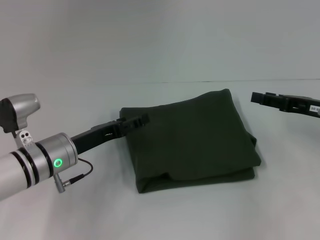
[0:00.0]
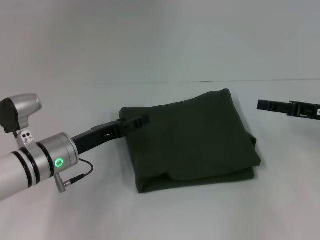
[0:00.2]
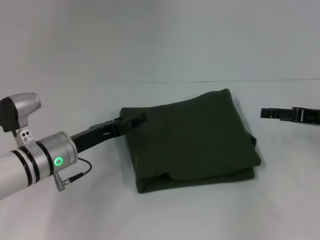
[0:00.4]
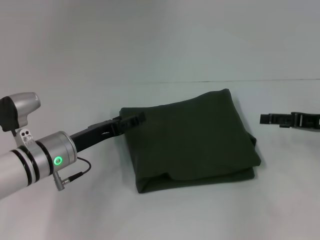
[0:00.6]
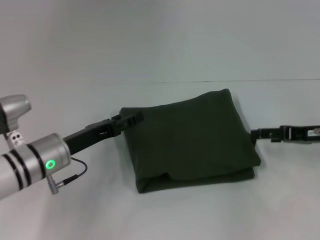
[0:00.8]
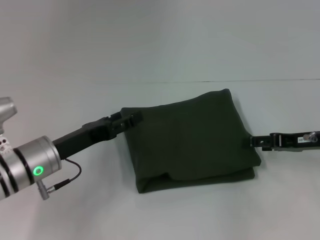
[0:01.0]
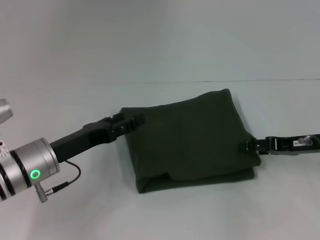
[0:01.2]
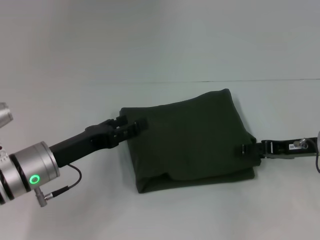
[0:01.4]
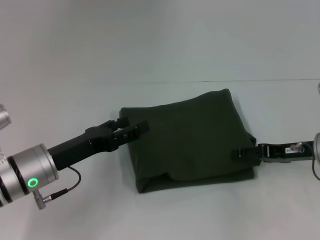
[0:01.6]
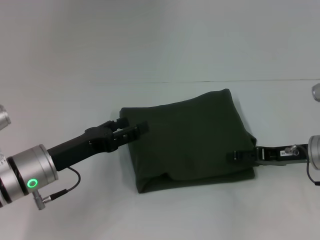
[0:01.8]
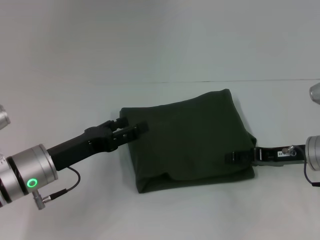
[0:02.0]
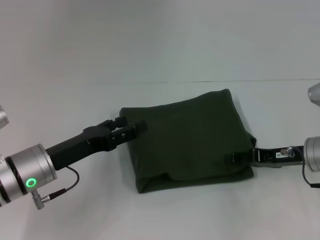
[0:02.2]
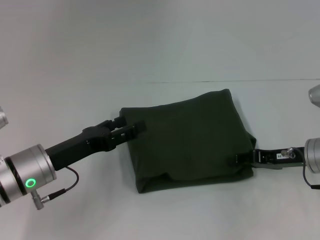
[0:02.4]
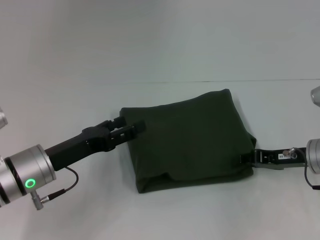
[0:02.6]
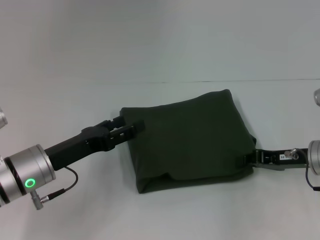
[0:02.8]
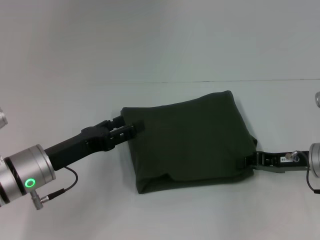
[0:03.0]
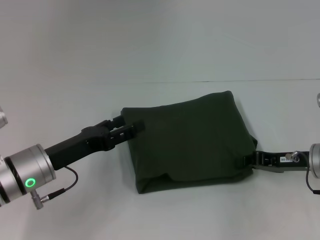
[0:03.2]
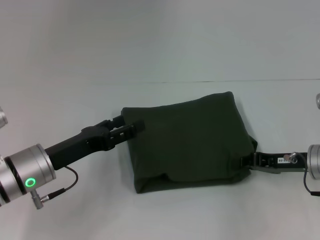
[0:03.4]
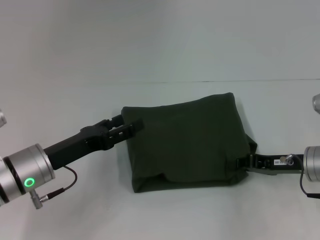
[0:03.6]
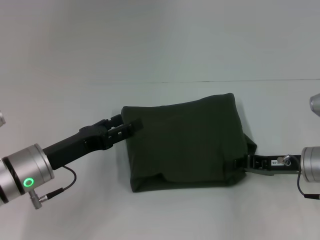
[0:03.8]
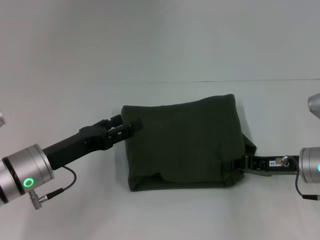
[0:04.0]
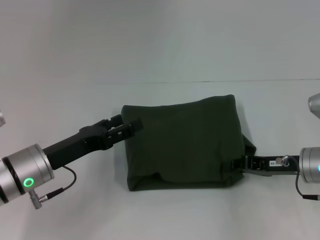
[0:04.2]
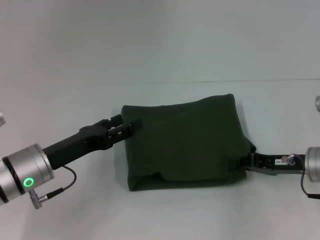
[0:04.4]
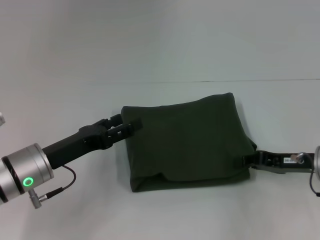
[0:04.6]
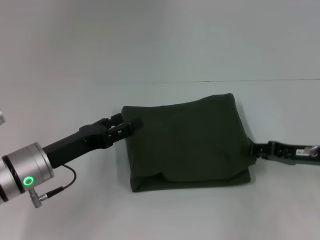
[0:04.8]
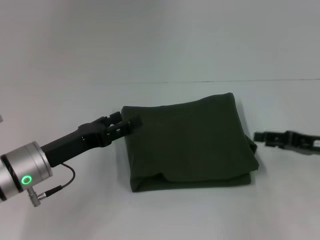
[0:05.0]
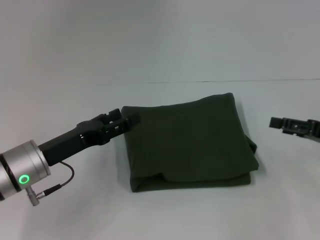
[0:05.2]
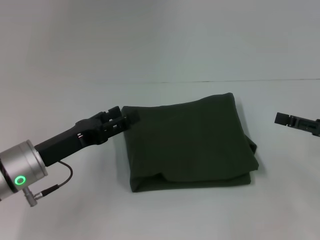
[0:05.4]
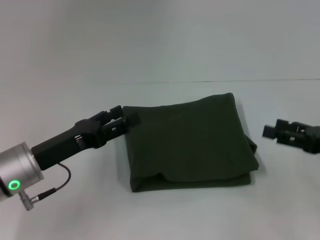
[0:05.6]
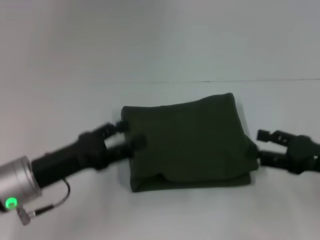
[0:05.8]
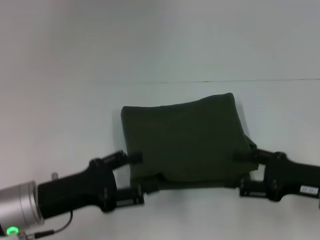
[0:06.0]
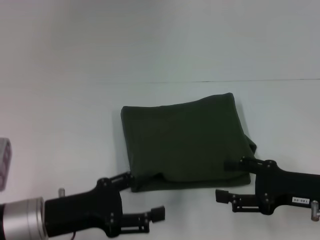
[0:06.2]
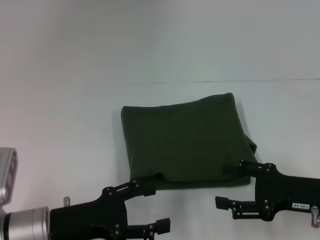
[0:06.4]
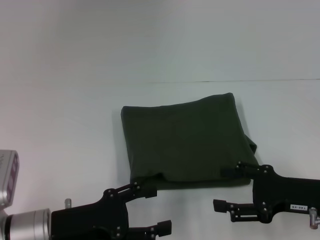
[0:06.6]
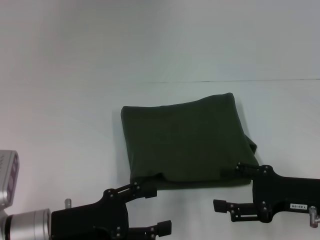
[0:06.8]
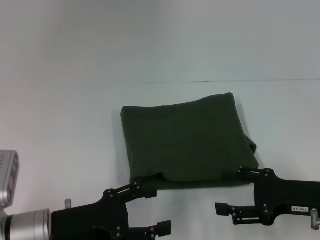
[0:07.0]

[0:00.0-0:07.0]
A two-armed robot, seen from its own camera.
0:00.0 to 0:01.4: The right gripper opens its fingers.
0:01.4 to 0:02.8: The right gripper closes.
0:02.8 to 0:04.2: There are only small adjustments of the grippers.
0:04.2 to 0:05.6: The right gripper is displaced to the right by roughly 5 cm, and opens.
0:05.6 to 0:07.0: The right gripper travels to the left by about 5 cm, while the left gripper moves backward, roughly 5 cm.

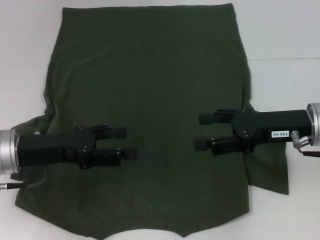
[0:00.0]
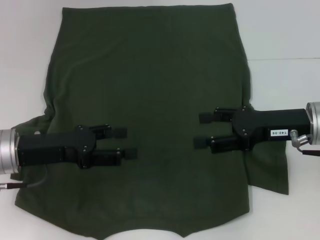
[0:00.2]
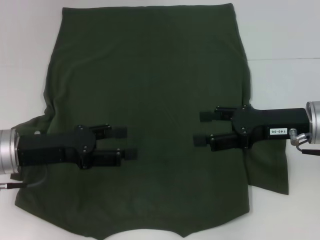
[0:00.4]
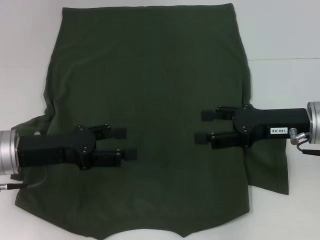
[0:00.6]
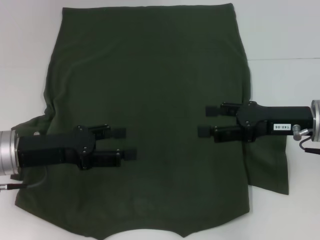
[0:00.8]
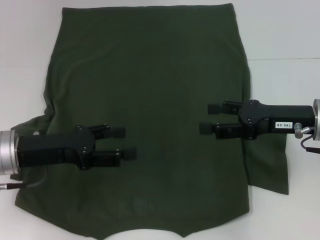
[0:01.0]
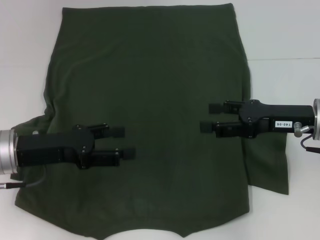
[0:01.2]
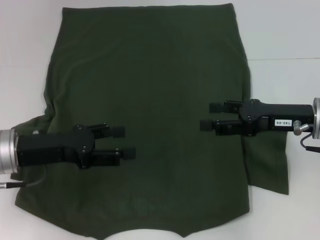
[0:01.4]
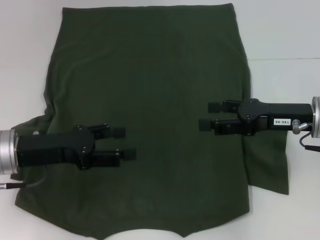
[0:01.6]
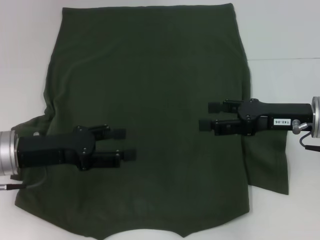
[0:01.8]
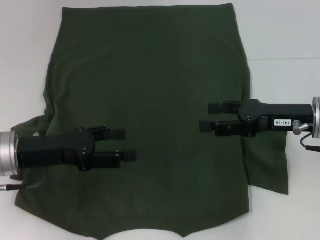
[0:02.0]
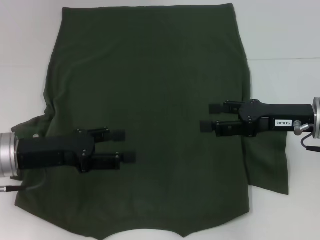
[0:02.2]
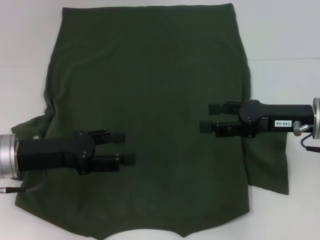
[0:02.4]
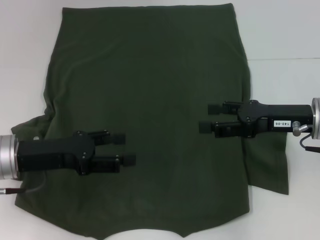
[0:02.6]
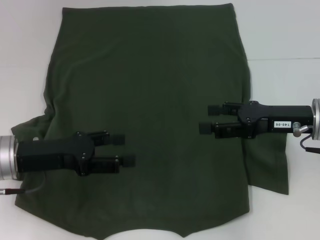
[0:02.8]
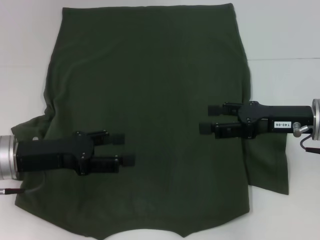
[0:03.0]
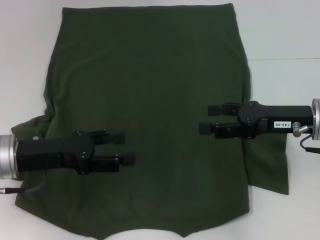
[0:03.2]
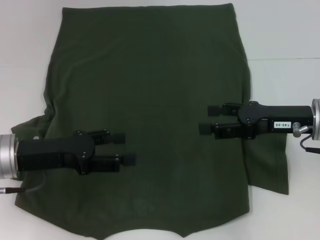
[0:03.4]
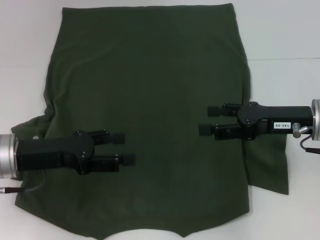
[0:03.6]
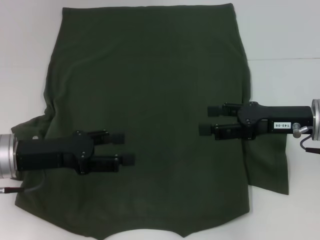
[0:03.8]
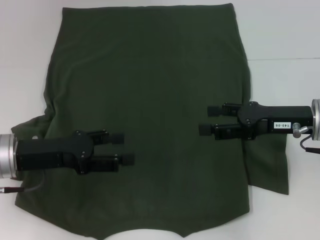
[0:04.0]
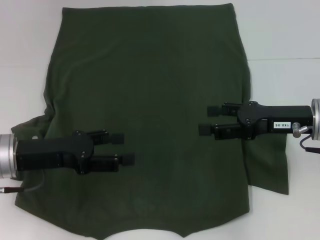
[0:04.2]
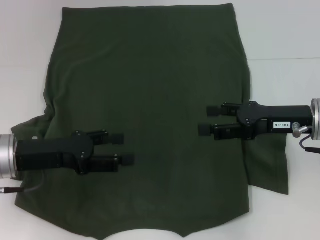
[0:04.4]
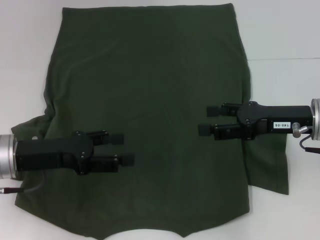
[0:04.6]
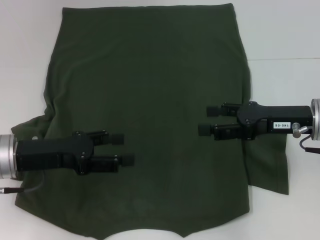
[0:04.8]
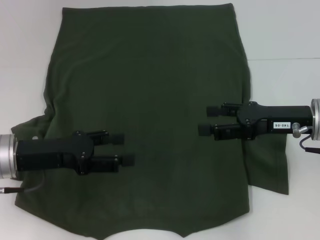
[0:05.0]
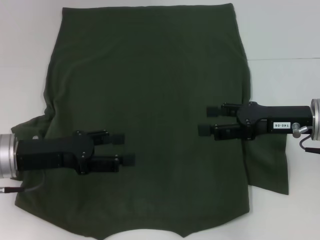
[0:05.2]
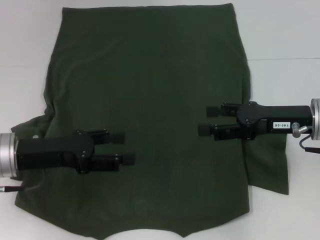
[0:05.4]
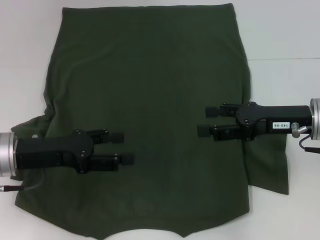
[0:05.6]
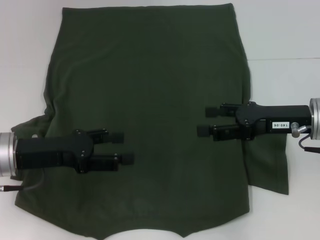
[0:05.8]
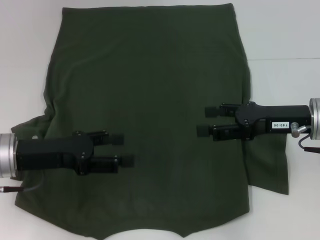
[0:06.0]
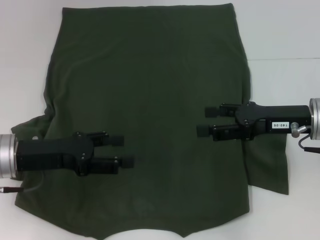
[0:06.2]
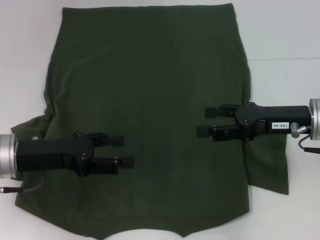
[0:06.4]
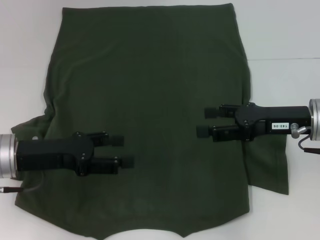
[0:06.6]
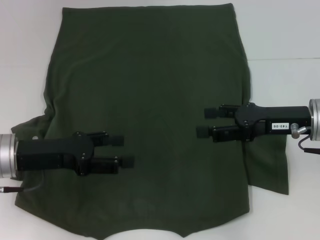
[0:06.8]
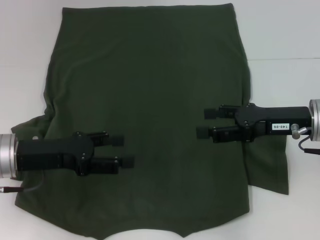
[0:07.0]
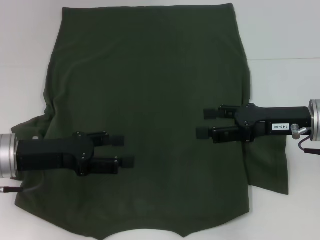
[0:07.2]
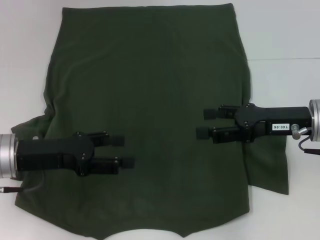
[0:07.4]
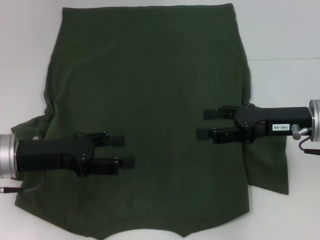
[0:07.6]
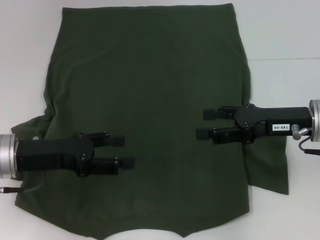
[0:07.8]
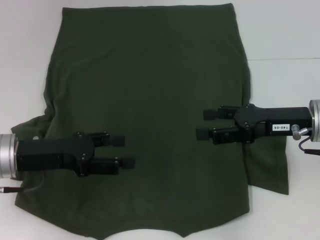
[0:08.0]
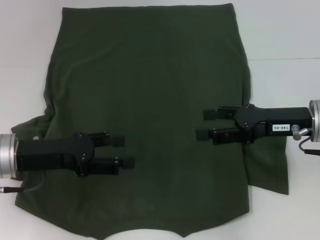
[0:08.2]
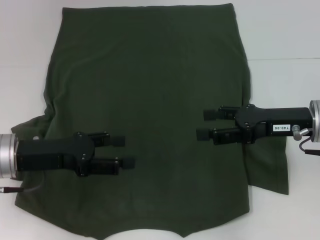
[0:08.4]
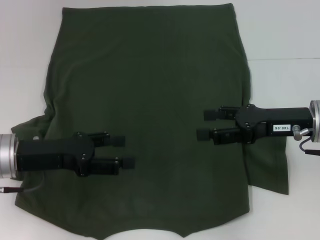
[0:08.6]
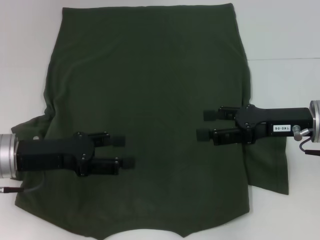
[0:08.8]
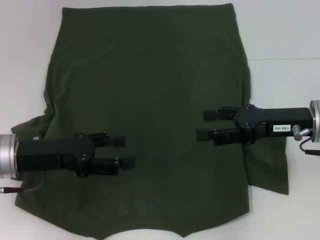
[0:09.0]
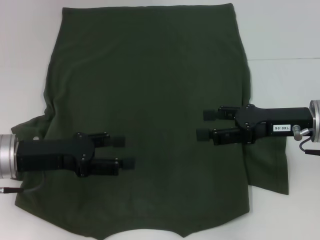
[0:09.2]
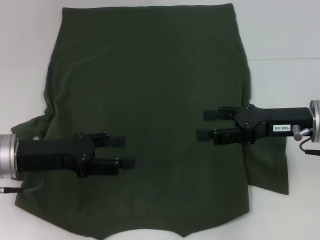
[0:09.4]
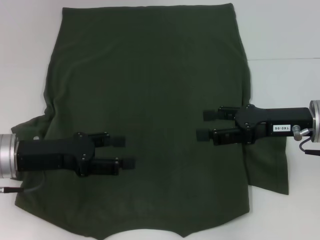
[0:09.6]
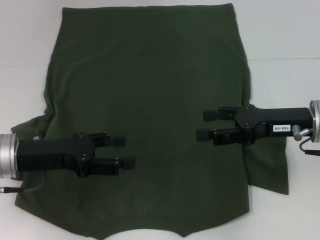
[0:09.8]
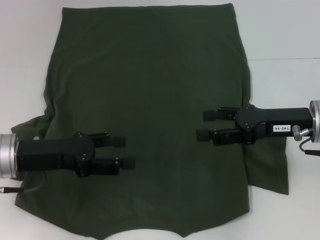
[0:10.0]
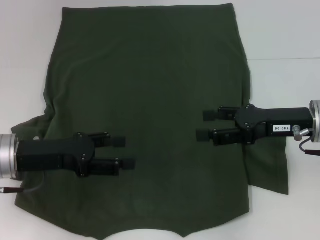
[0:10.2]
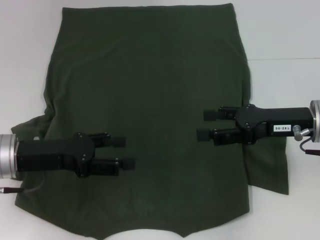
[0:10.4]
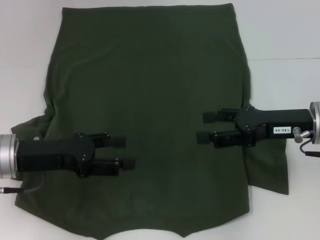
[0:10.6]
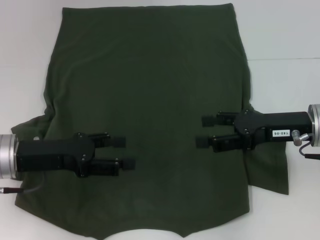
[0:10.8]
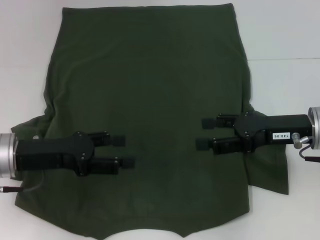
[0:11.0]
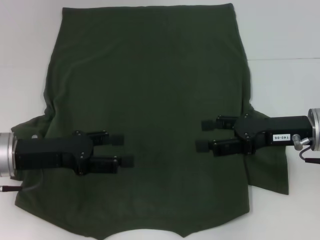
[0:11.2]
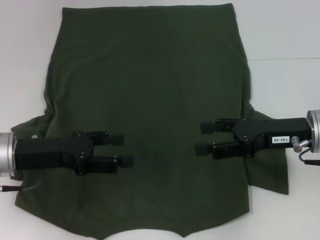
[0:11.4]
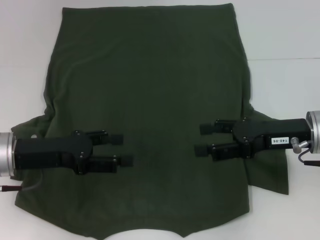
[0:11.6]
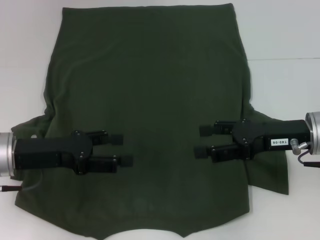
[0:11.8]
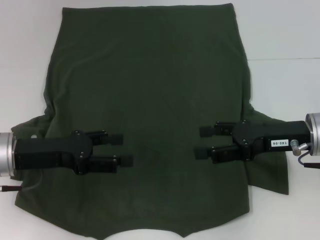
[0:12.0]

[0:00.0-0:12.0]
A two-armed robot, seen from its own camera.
0:00.0 to 0:01.6: The grippers move only a little.
0:01.6 to 0:10.4: The two grippers keep their place.
0:10.4 to 0:12.0: Both grippers stay put.

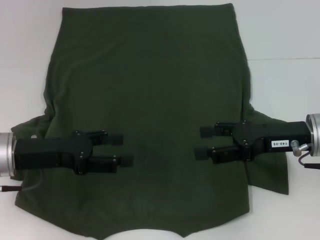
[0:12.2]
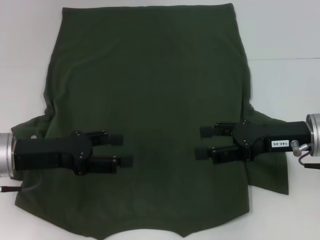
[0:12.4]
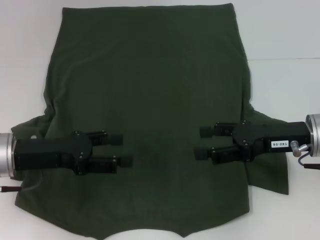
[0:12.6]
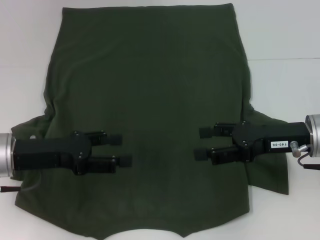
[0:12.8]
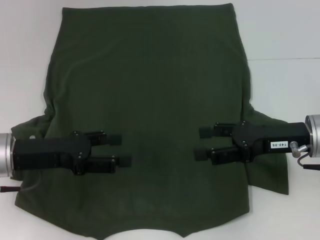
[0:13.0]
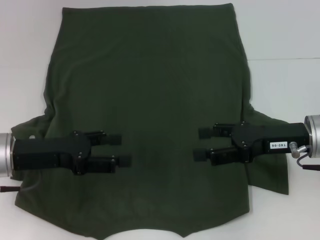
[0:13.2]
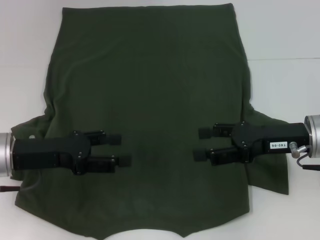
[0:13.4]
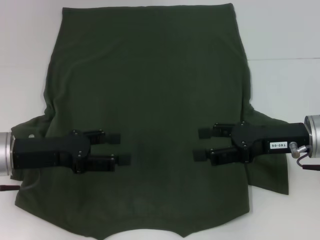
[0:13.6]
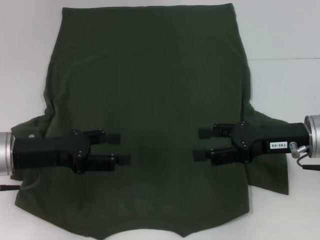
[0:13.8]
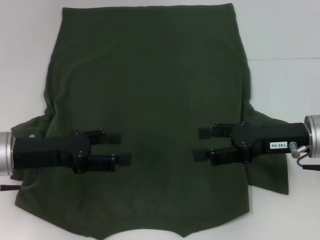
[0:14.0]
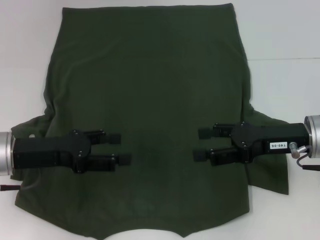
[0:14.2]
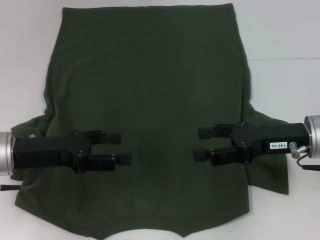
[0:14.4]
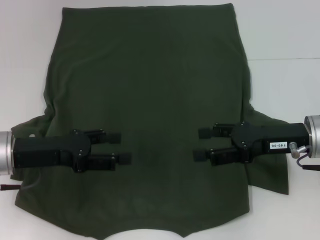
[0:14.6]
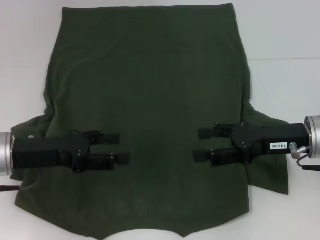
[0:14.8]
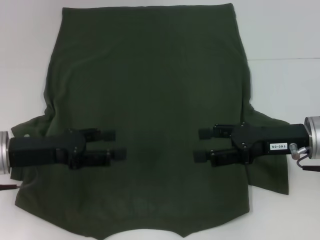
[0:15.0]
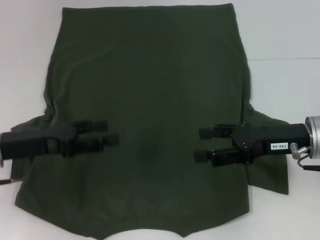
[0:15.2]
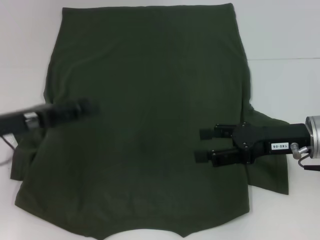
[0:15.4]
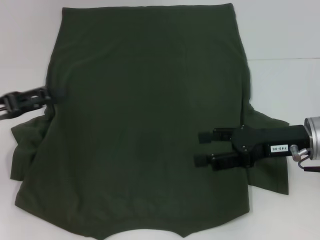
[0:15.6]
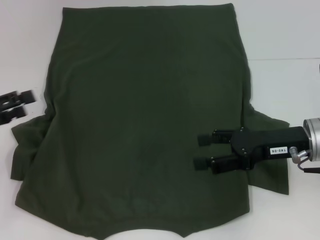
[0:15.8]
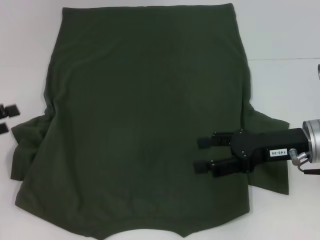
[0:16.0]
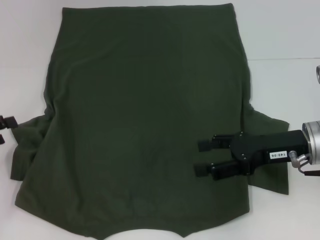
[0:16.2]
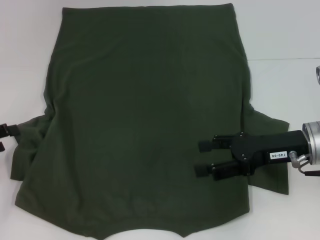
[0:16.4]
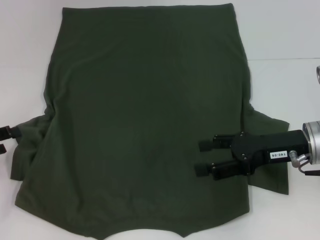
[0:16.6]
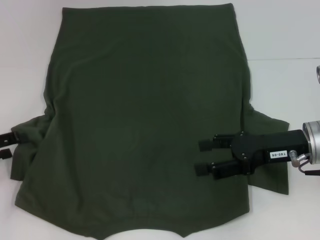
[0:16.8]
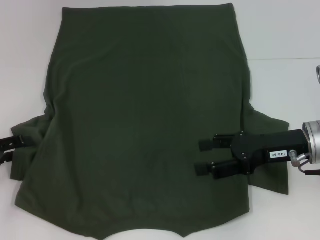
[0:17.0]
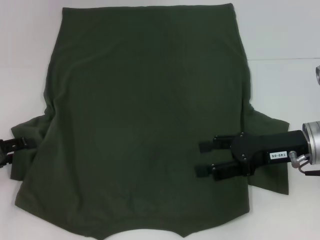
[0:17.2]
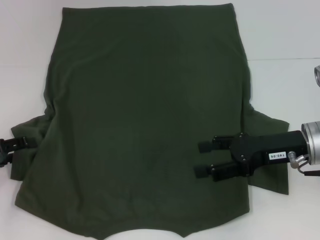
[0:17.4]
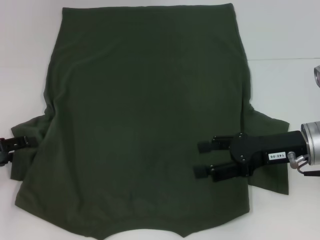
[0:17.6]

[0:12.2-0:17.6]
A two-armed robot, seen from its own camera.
0:12.2 to 0:15.0: Both grippers stay put.
0:15.0 to 0:16.2: The left gripper is displaced to the left by some 15 cm.
0:16.2 to 0:17.6: The grippers make only small movements.
